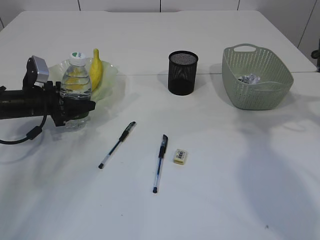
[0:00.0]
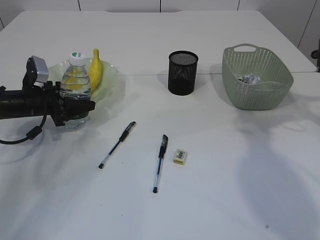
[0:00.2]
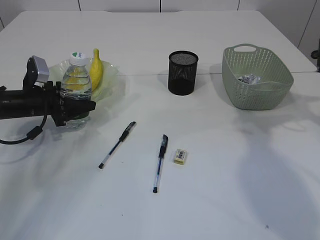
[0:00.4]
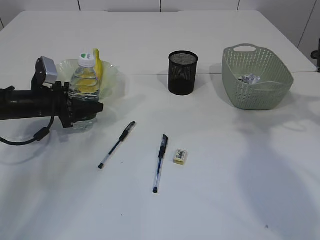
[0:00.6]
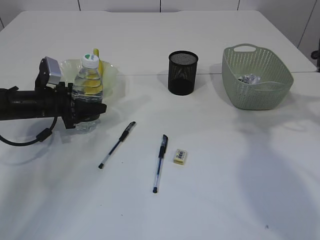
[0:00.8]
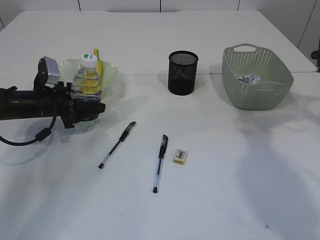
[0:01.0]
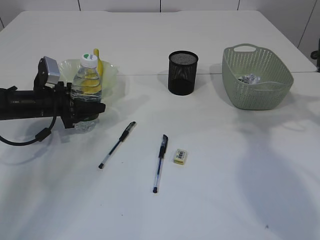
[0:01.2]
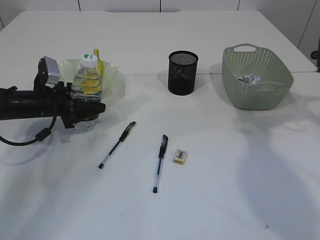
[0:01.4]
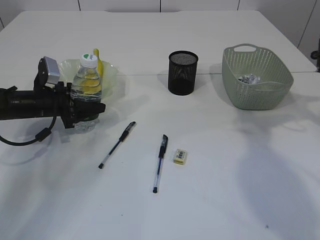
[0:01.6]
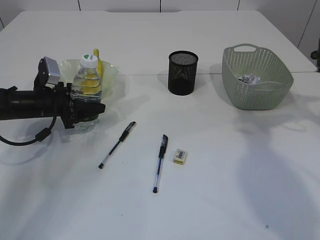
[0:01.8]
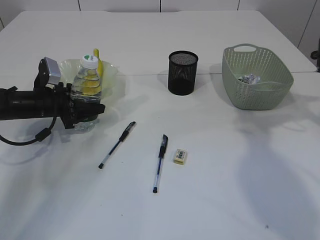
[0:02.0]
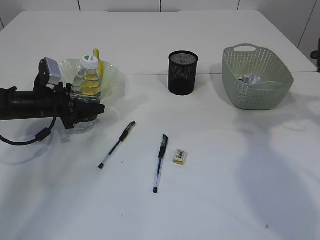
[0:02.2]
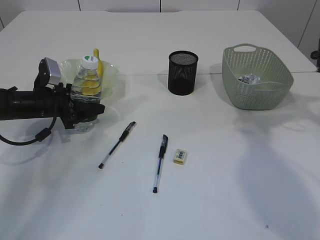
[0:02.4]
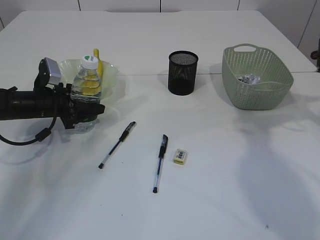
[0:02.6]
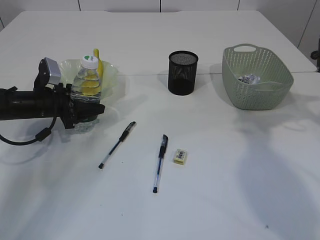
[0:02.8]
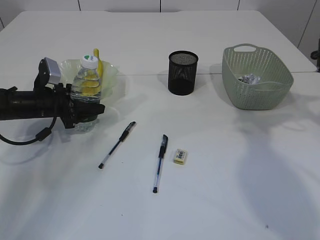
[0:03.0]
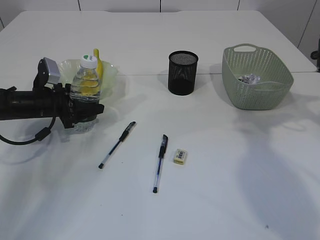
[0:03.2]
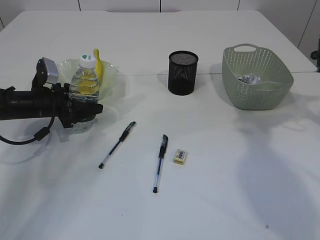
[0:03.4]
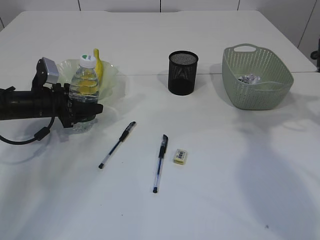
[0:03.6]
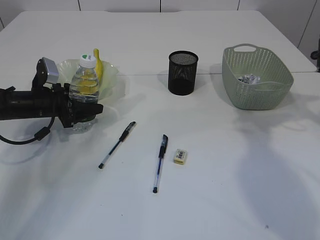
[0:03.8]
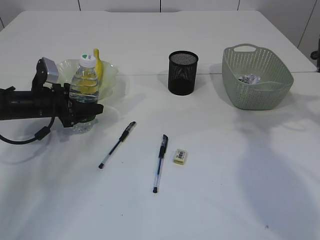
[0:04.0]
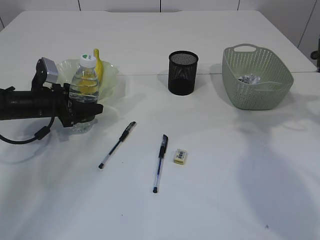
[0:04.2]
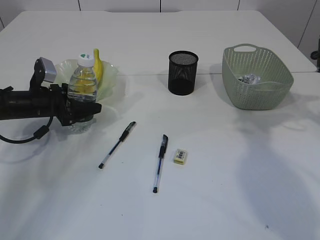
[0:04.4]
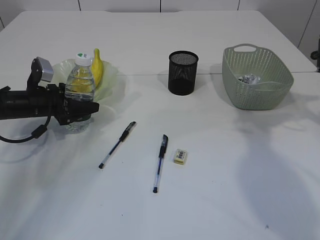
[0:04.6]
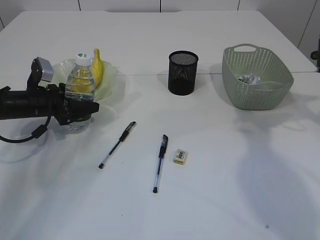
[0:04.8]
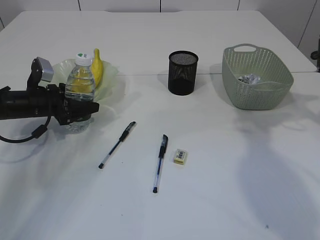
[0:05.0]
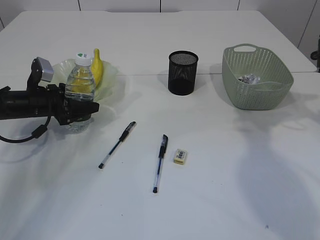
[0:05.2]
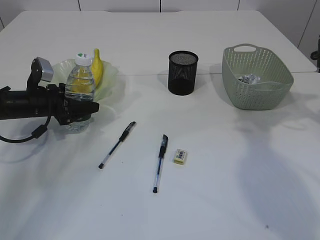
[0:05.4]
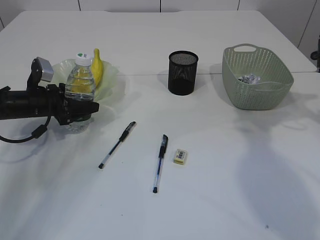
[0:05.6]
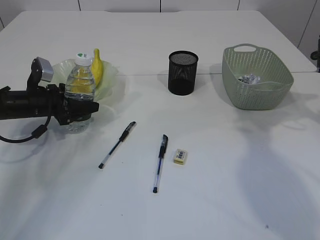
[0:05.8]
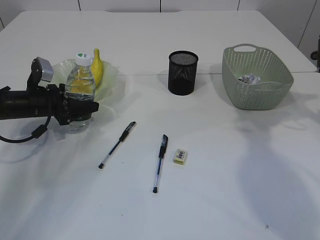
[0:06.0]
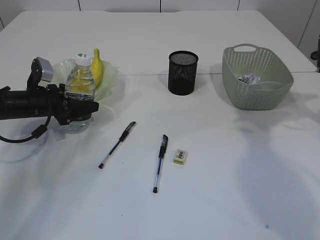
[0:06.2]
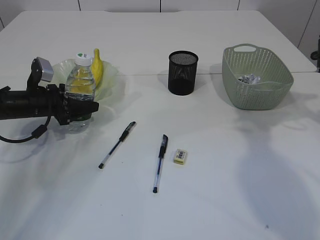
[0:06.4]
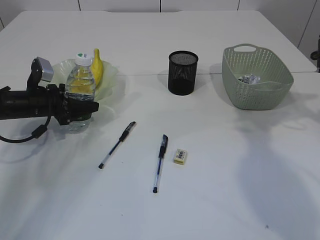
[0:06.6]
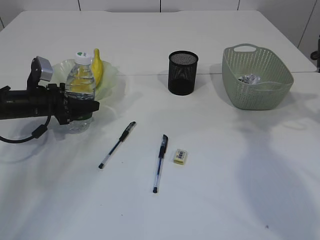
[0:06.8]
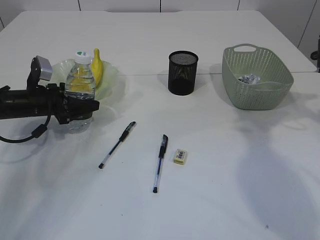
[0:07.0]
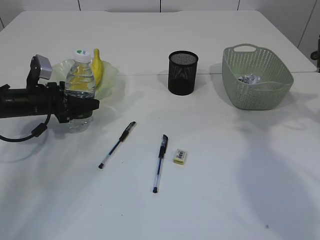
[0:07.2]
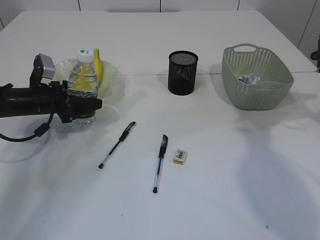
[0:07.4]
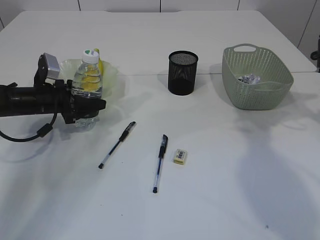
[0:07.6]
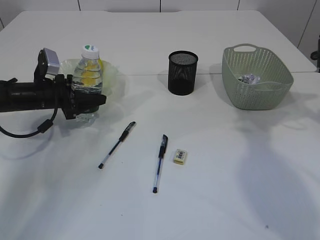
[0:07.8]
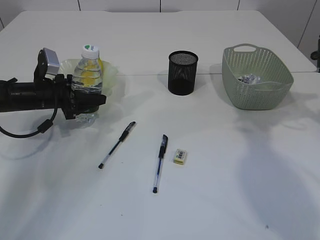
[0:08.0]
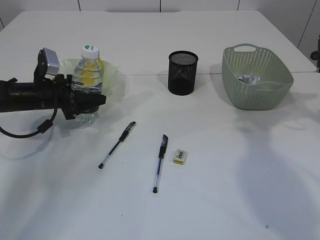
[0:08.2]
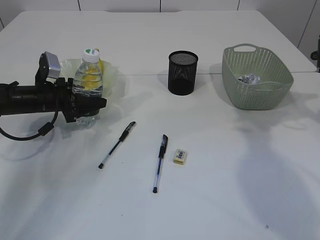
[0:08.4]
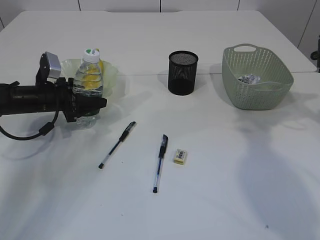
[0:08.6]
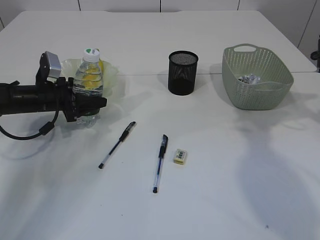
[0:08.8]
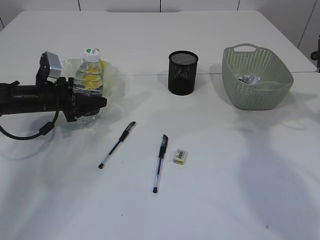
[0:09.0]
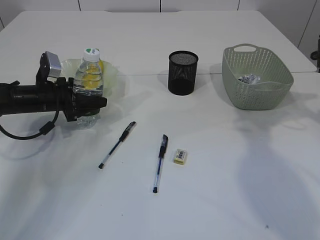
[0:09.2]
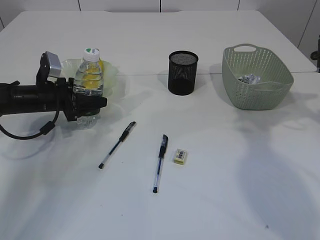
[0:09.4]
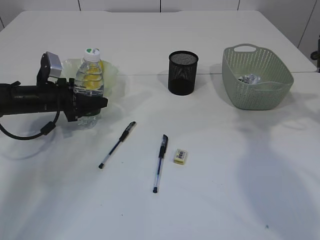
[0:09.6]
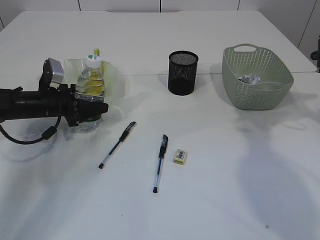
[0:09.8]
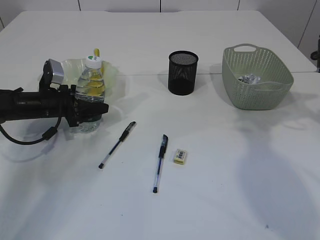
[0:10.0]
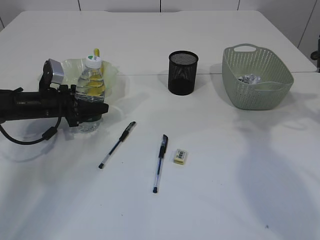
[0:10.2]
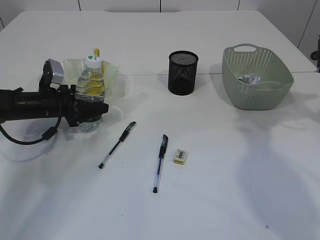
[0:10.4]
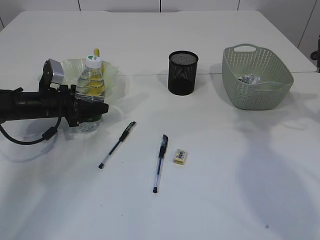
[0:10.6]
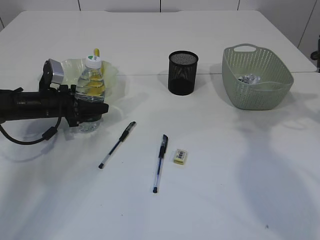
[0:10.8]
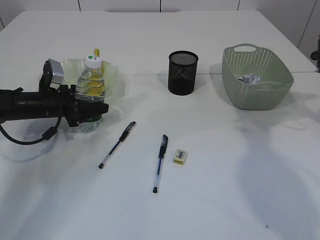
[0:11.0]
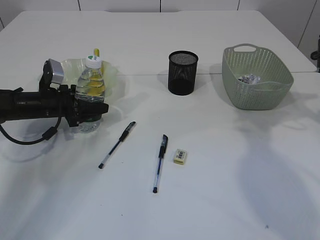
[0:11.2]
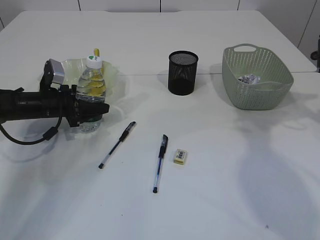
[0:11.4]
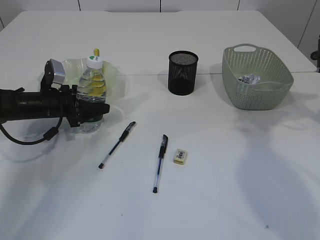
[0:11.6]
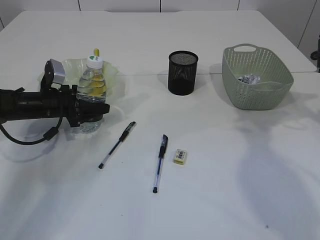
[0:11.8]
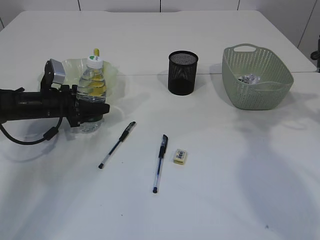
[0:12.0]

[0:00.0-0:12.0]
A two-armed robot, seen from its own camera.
0:00.0 to 0:01.6: The grippers make only small movements.
0:01.6 to 0:03.0: The two grippers keep their place.
0:03.0 to 0:04.4: Both grippers stay about where they are.
0:04.4 to 0:06.0: Neither gripper changes place.
0:06.0 to 0:07.6: The grippers stay close to where they were, moving slightly.
0:07.6 to 0:09.0: Neither gripper changes place.
0:09.0 to 0:10.4: The grippers stay close to where they were, moving slightly.
0:10.4 to 0:12.0: Both grippers stay put.

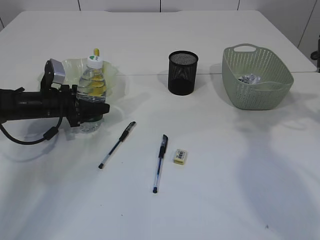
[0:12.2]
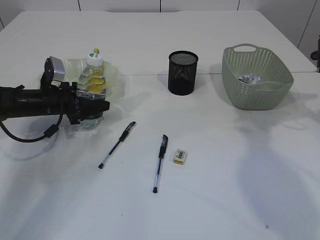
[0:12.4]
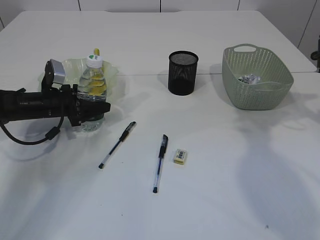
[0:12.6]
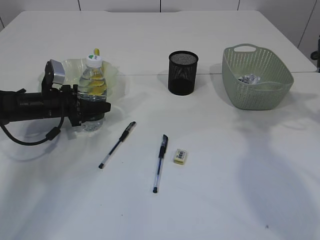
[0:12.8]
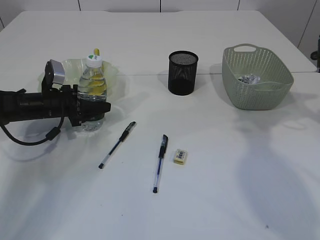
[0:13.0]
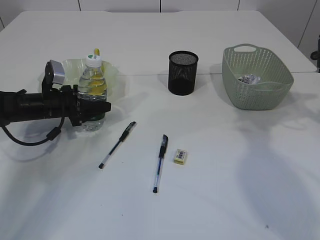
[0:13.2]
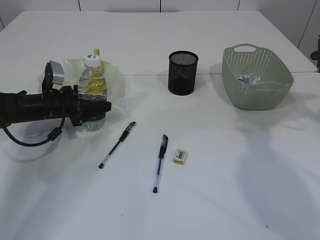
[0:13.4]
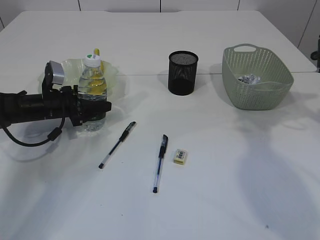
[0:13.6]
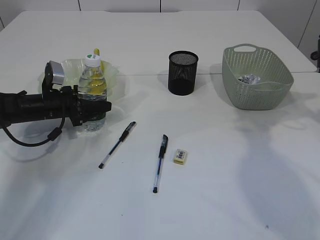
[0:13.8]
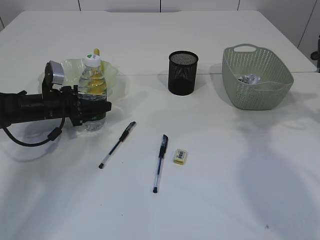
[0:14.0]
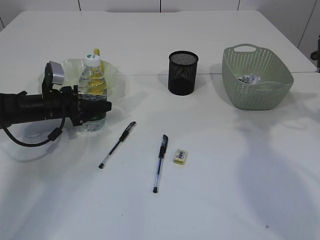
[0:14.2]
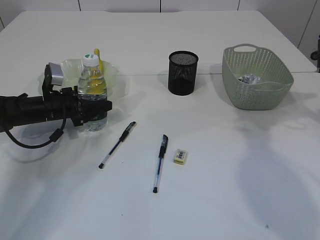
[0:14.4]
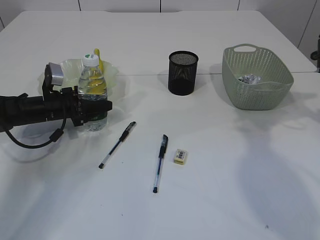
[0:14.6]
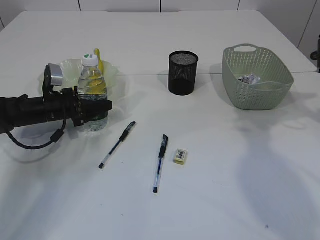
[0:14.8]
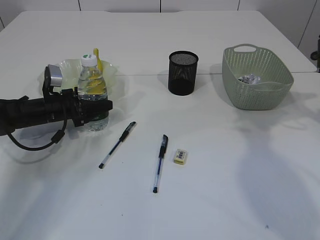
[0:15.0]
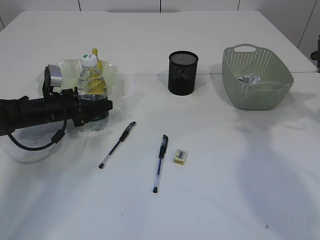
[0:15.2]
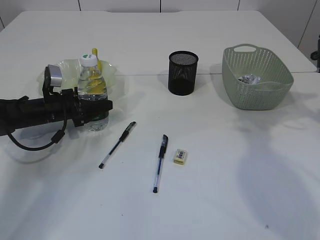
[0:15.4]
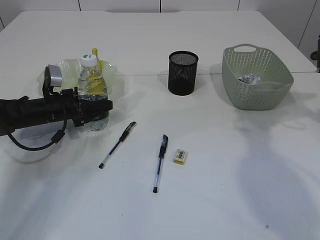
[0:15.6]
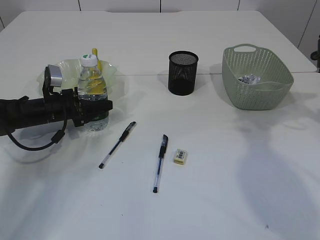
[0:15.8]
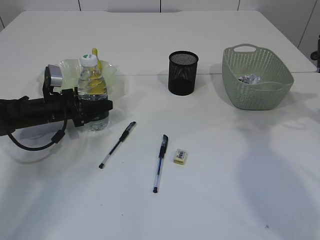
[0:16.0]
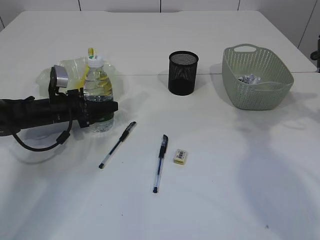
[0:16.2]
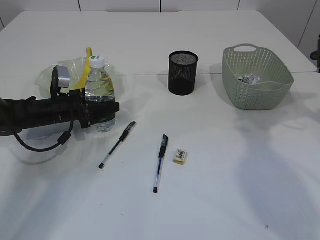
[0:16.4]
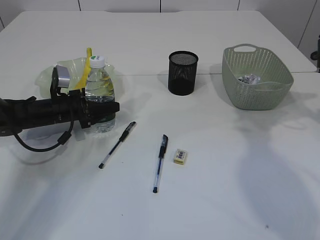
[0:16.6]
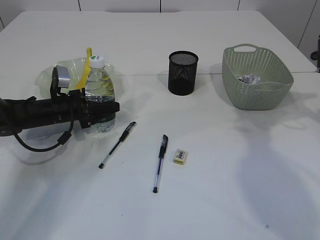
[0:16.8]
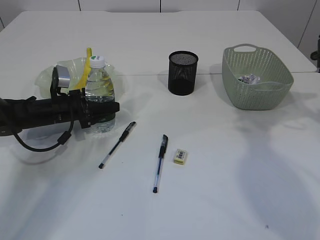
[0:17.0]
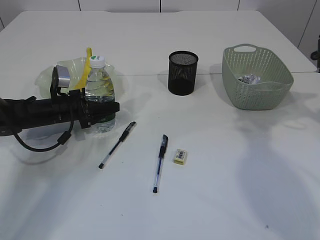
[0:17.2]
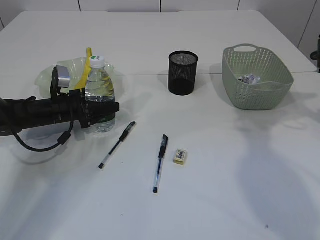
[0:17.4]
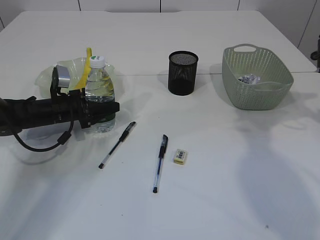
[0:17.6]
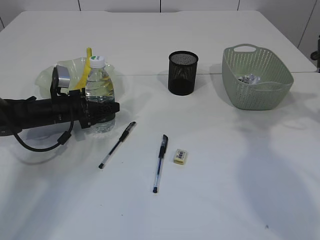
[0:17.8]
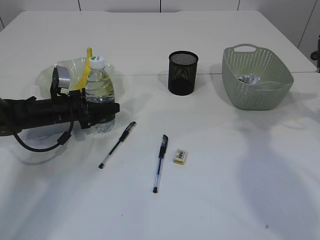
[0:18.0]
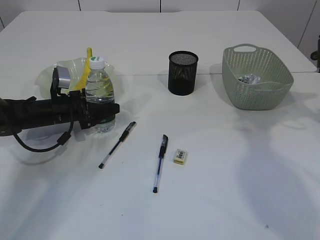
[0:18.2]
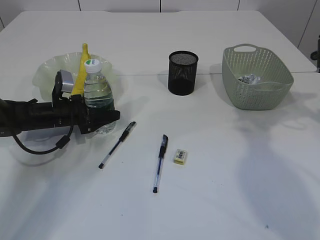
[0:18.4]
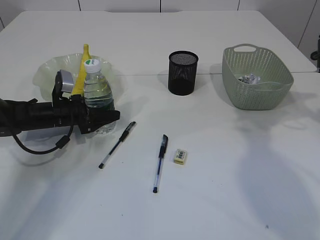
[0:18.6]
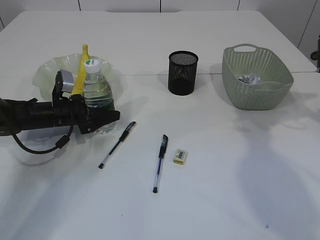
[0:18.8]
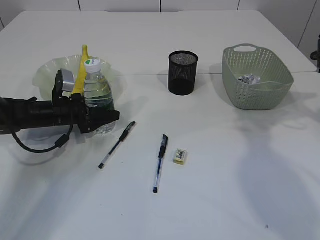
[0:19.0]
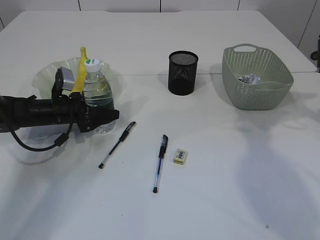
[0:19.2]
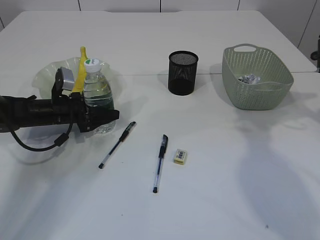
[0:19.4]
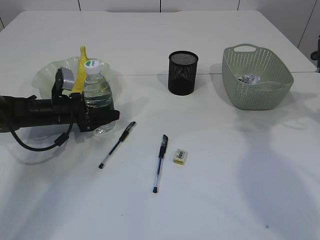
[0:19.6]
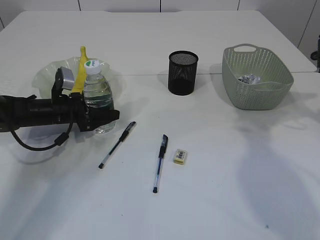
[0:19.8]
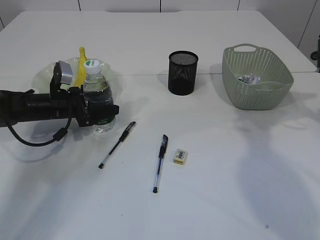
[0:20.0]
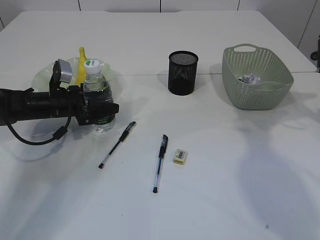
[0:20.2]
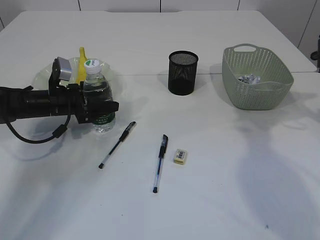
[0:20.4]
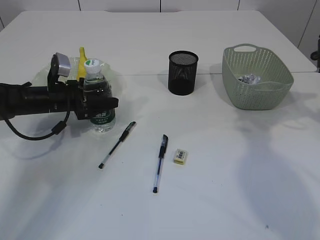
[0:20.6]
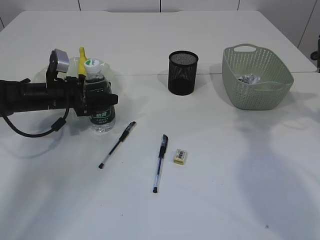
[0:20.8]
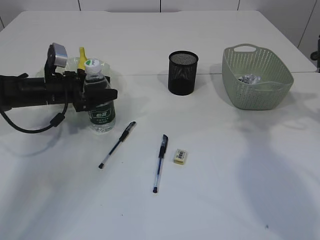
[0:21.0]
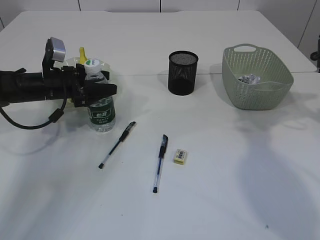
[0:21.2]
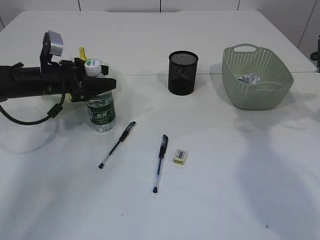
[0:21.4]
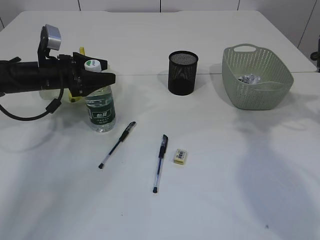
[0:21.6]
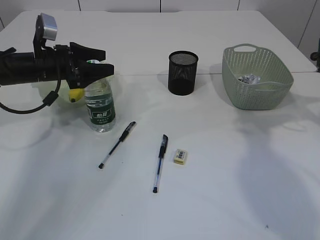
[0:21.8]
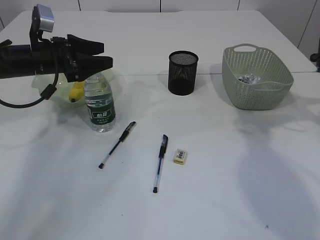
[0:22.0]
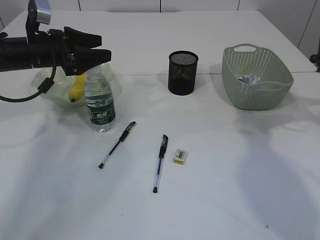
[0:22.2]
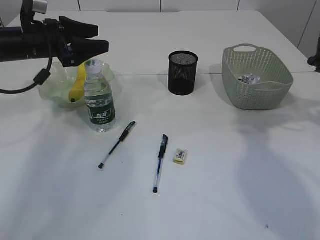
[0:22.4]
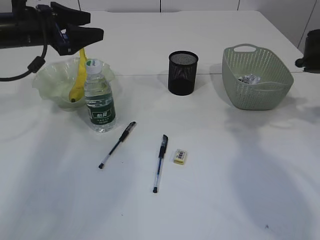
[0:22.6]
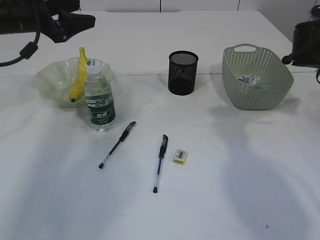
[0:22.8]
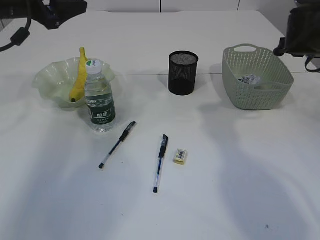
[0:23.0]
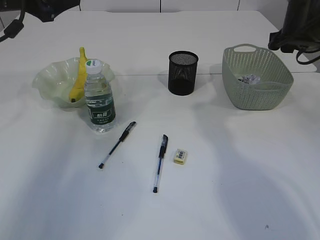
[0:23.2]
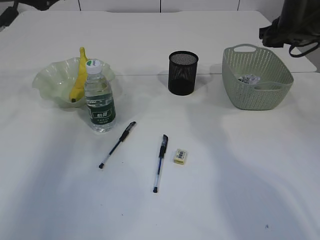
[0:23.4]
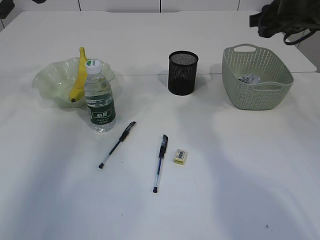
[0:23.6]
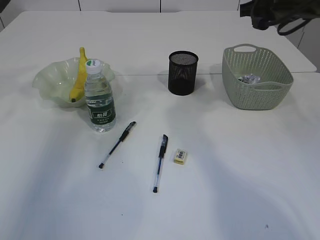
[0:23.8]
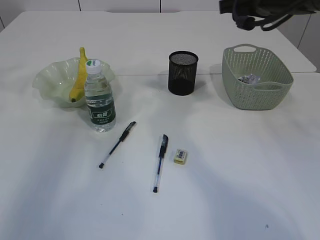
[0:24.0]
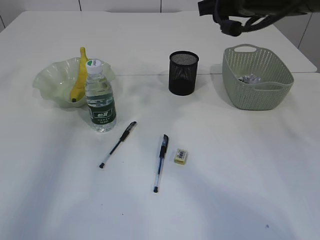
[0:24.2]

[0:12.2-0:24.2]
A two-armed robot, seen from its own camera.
Step, 0:12.2 to 0:22.2: Place the bottle.
0:12.2 to 0:13.8: The two grippers keep their place.
0:13.8 to 0:16.6: The grippers stay close to where they were, moving slightly.
0:16.6 to 0:18.2: Neither gripper changes place.
0:18.2 to 0:19.8: The grippers move only a little.
0:19.8 to 0:21.2: The left gripper is displaced upward by approximately 5 cm.
0:21.2 to 0:22.6: The left gripper travels upward by roughly 15 cm.
0:22.6 to 0:24.2: The left gripper goes approximately 15 cm upward and to the left. Meanwhile the right gripper shifts approximately 25 cm to the left and upward.
